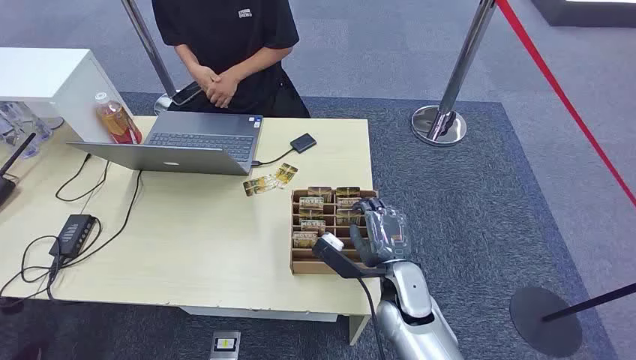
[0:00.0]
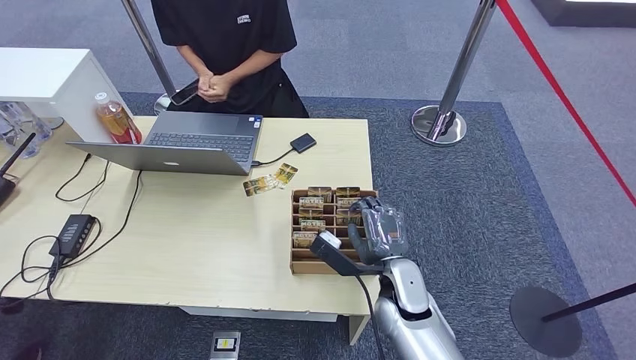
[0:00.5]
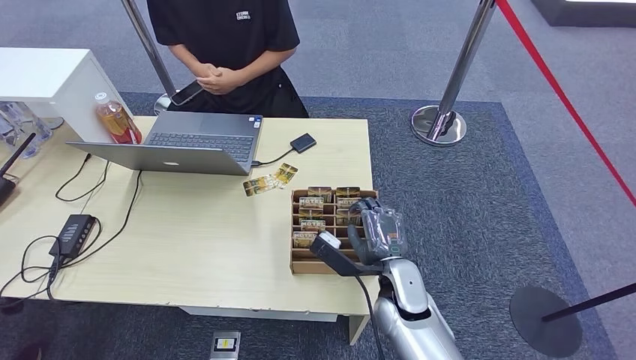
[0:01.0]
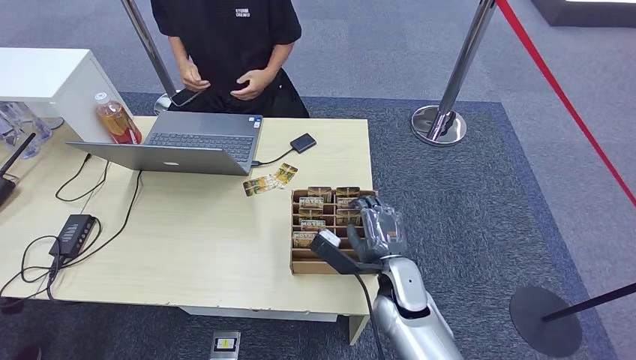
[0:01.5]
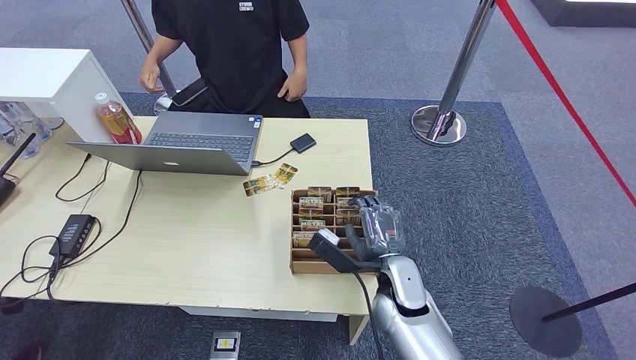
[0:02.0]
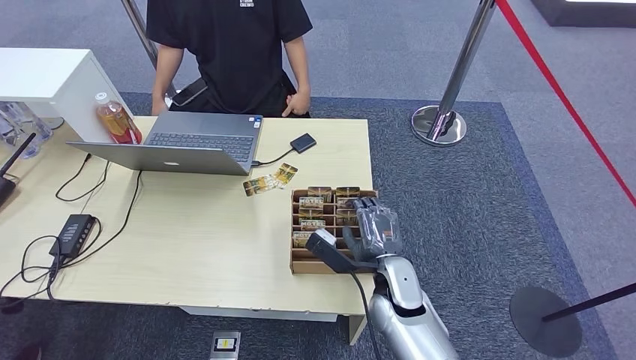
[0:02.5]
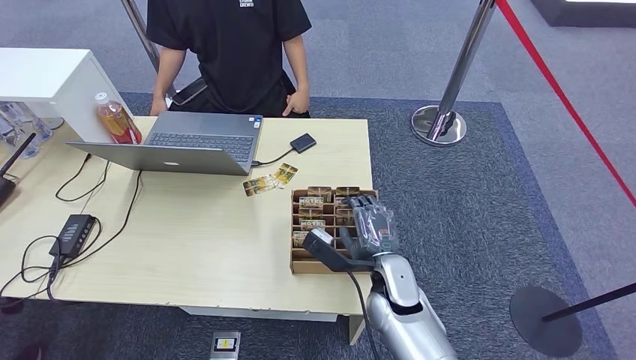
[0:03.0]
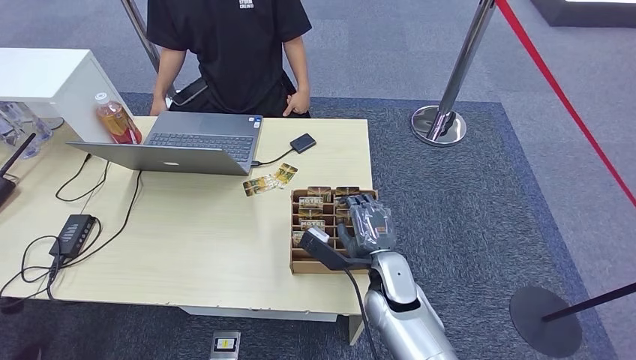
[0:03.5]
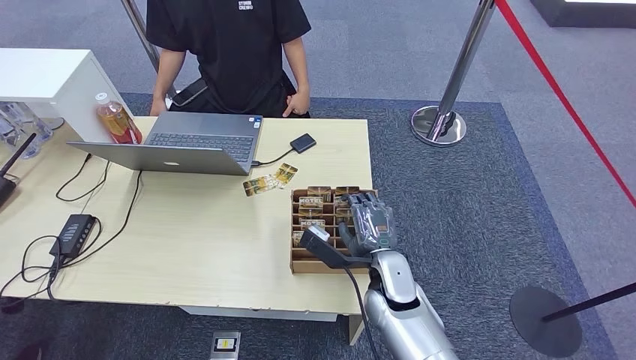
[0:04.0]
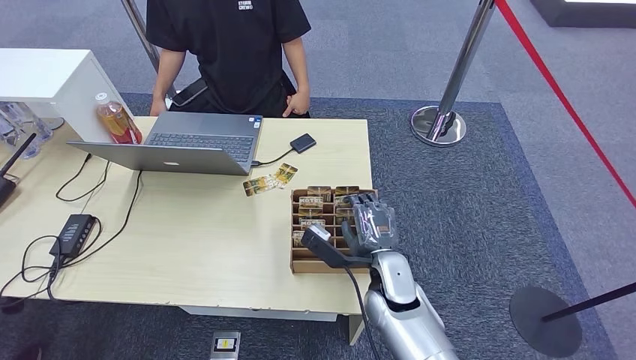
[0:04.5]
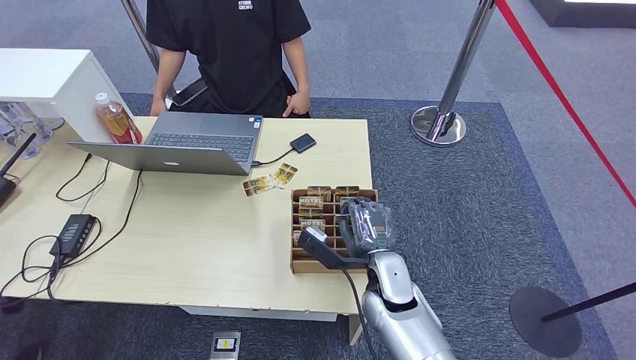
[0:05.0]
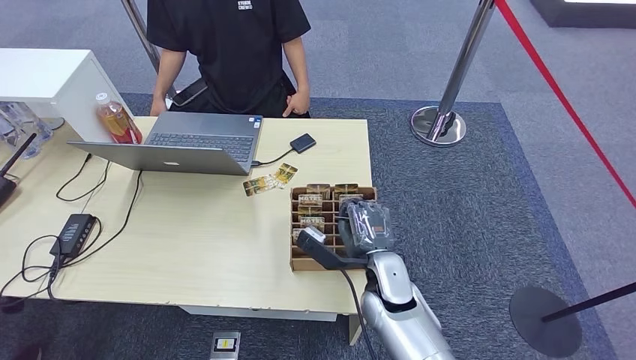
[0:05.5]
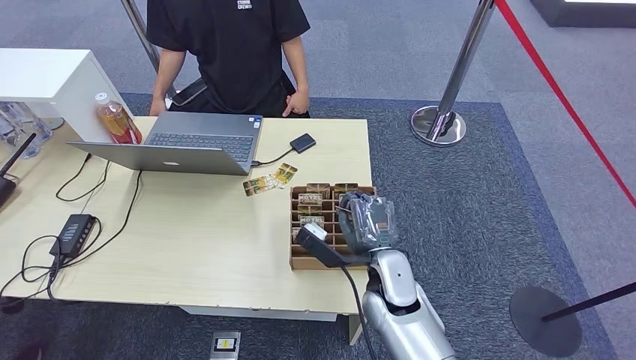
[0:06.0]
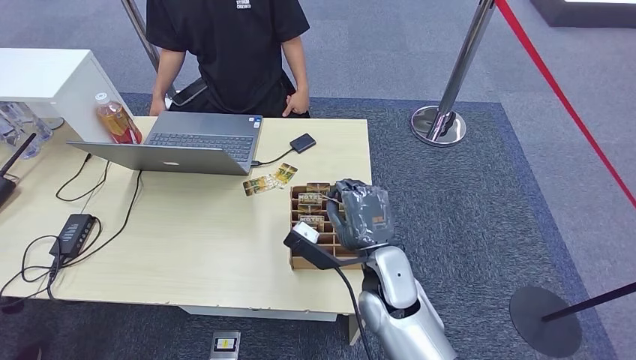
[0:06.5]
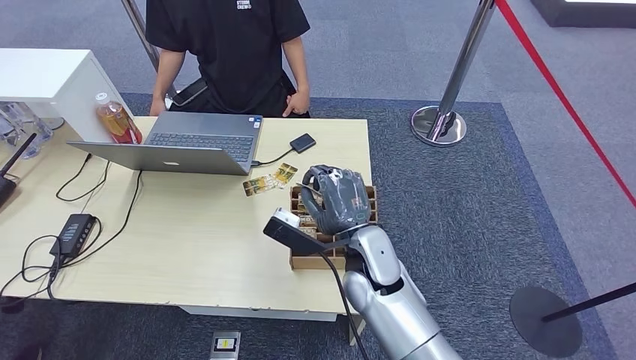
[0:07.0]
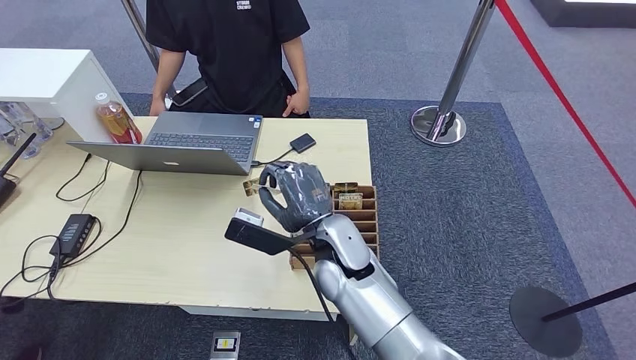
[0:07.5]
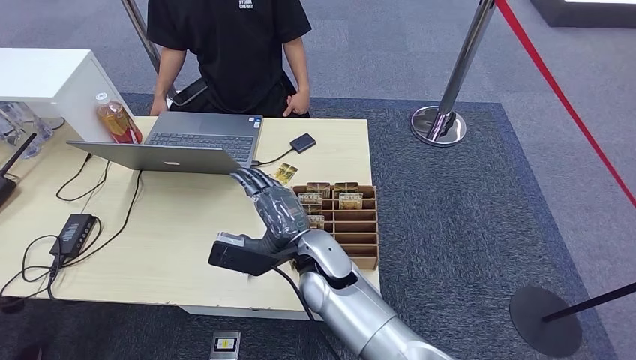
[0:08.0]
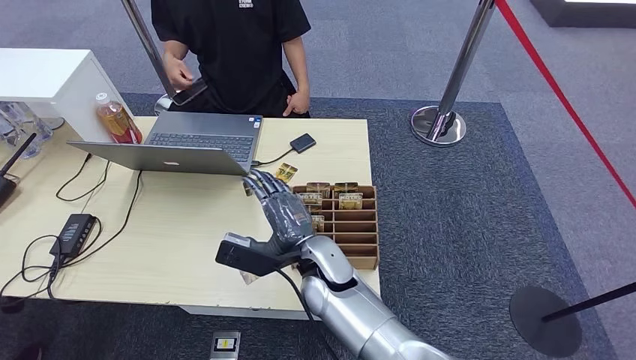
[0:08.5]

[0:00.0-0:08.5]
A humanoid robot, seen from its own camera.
Step, 0:00.0 to 0:06.0: Pick up the room card from the card holder.
Step, 0:06.5 to 0:08.5: Hand the room card to the target.
0:02.0 to 0:04.0: The hands stay close to where they were, moving slightly.
0:04.0 to 0:06.5: The right hand shifts about 5 cm upward.
0:06.5 to 0:08.5: The right hand goes roughly 10 cm to the left.

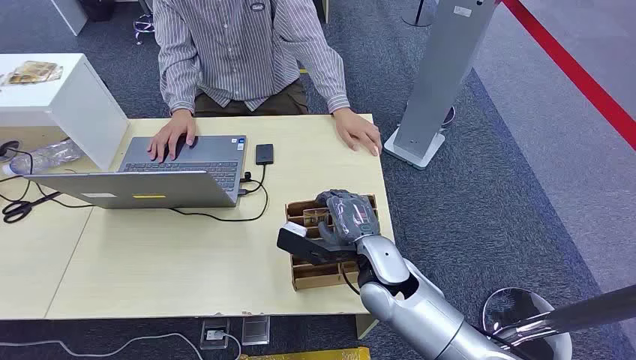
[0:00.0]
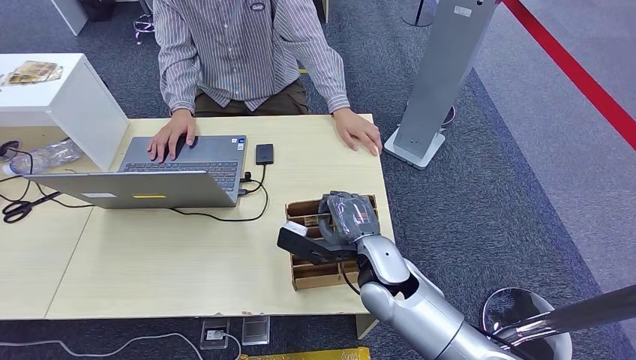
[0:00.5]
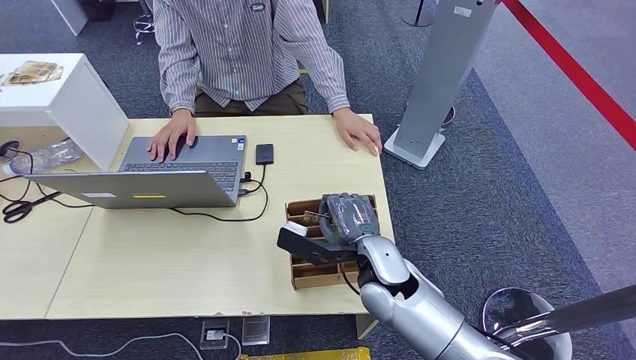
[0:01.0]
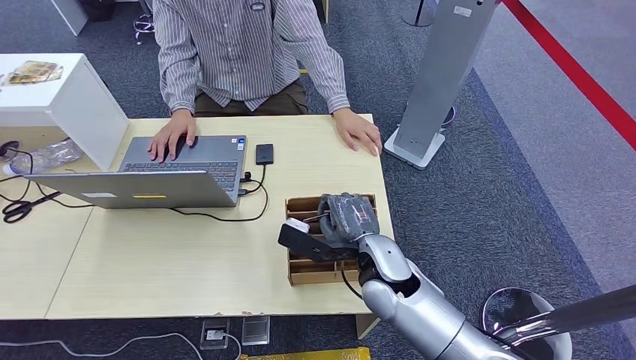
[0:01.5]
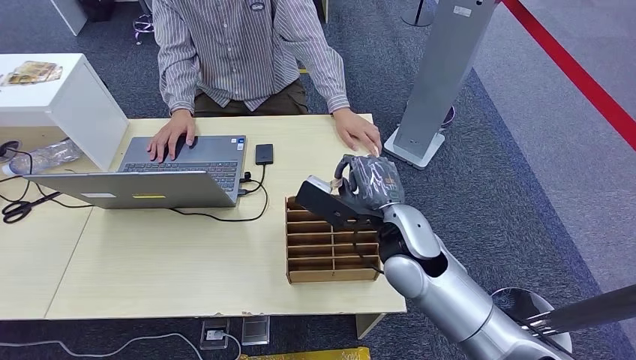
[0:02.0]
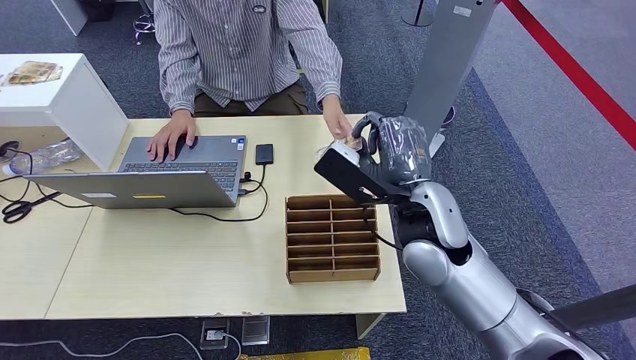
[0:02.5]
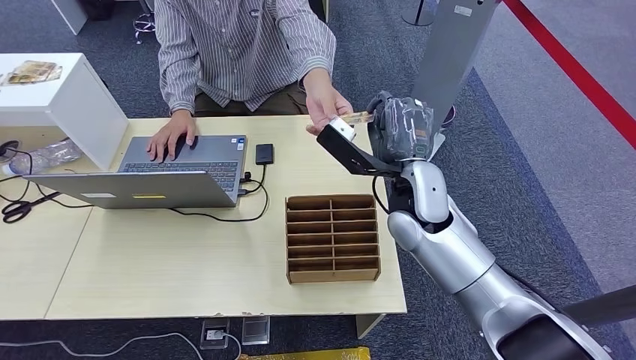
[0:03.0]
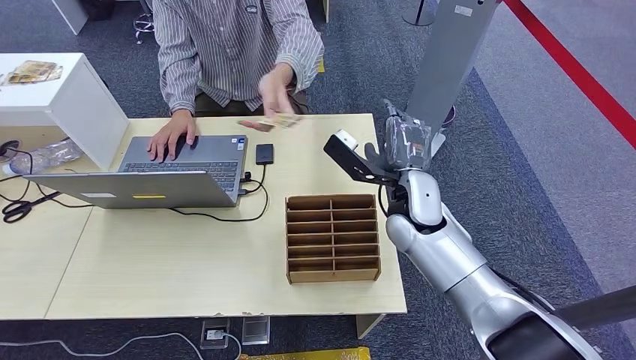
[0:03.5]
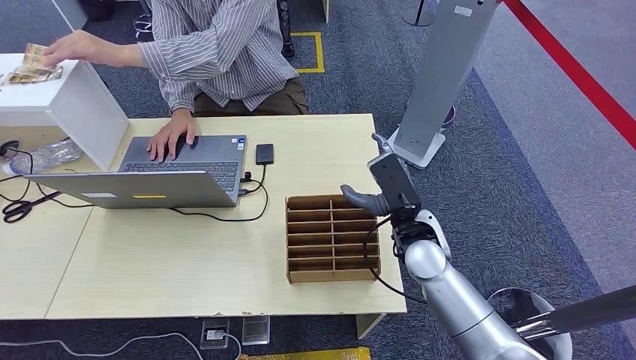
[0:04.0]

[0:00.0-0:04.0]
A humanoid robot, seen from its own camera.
Step, 0:00.0 to 0:02.0: Pick up the room card from the card holder.
Step, 0:03.0 to 0:04.0: Hand the room card to the target.
0:02.0 to 0:04.0: The right hand changes place by roughly 5 cm.
